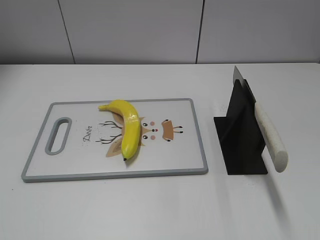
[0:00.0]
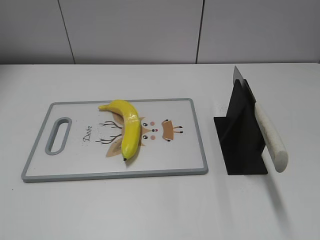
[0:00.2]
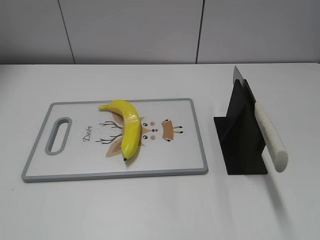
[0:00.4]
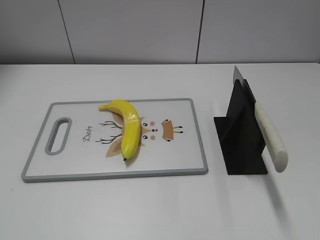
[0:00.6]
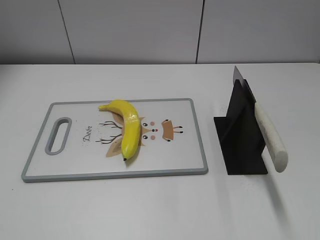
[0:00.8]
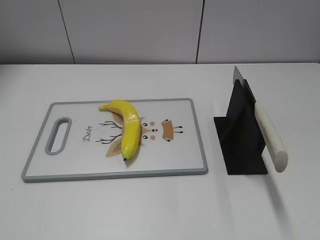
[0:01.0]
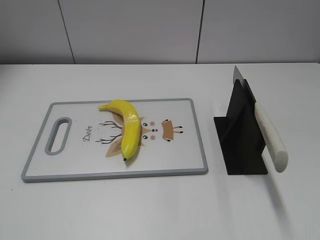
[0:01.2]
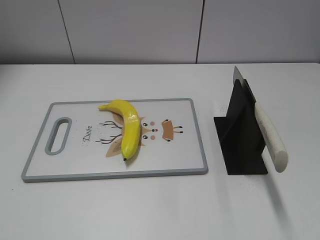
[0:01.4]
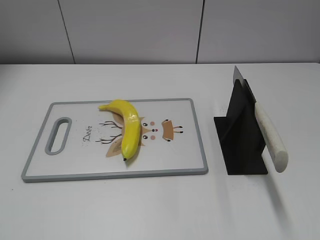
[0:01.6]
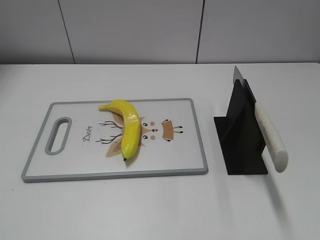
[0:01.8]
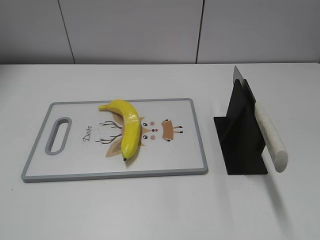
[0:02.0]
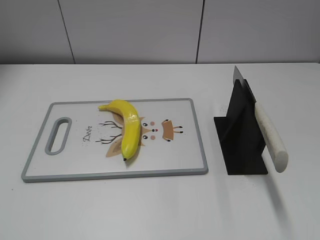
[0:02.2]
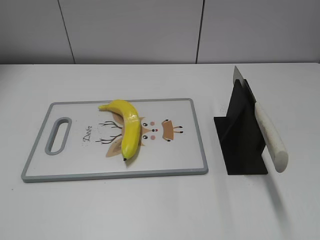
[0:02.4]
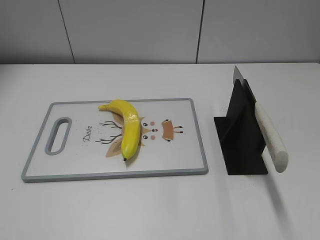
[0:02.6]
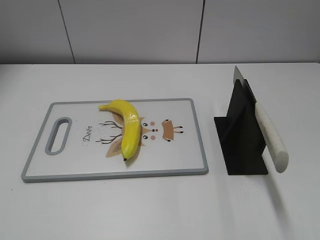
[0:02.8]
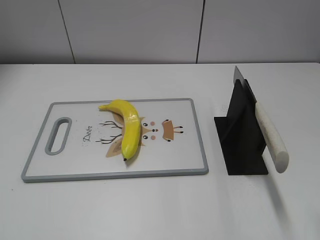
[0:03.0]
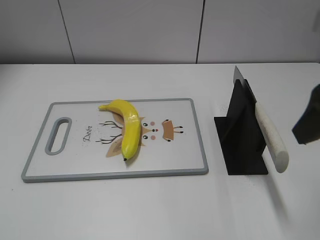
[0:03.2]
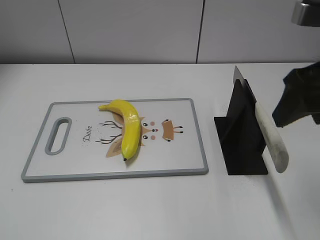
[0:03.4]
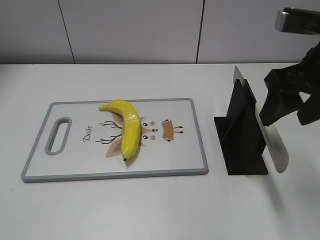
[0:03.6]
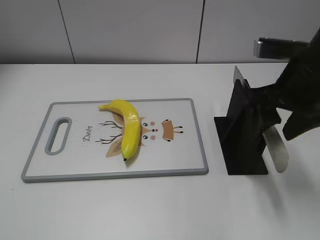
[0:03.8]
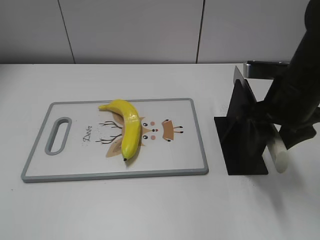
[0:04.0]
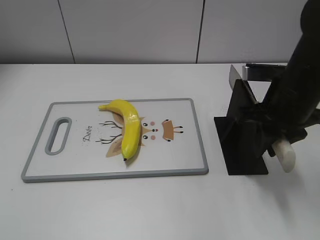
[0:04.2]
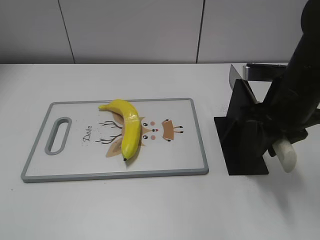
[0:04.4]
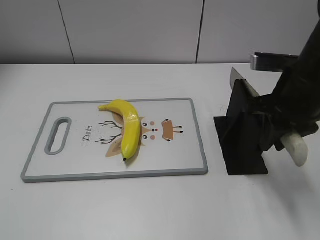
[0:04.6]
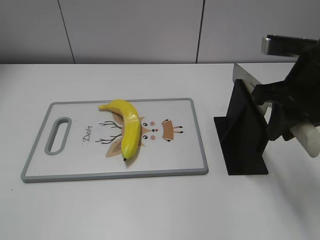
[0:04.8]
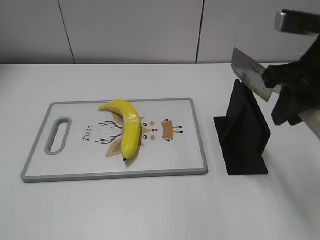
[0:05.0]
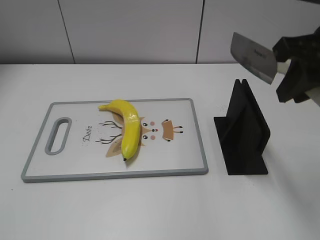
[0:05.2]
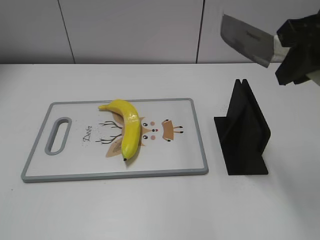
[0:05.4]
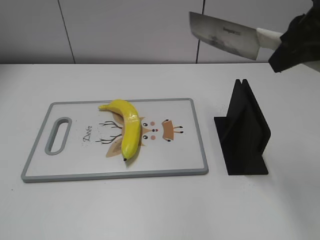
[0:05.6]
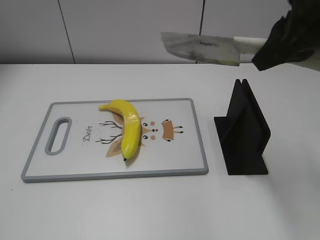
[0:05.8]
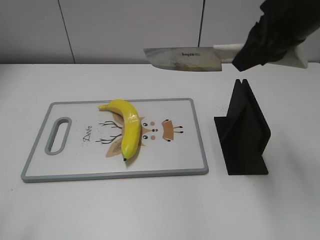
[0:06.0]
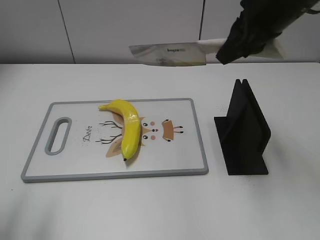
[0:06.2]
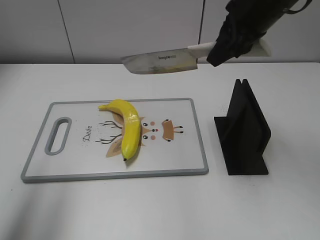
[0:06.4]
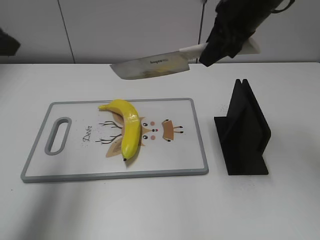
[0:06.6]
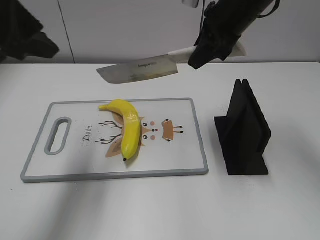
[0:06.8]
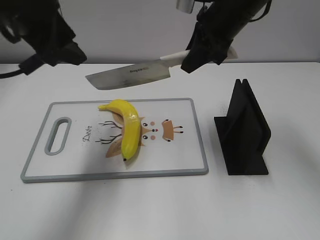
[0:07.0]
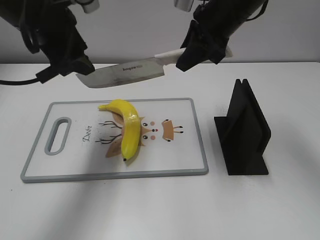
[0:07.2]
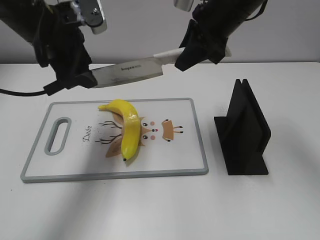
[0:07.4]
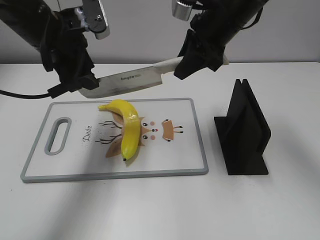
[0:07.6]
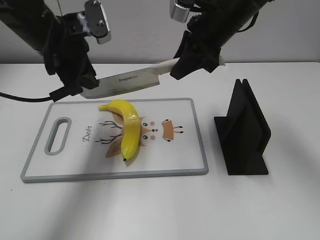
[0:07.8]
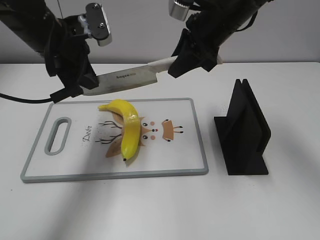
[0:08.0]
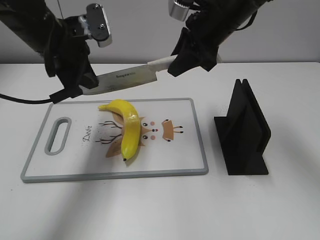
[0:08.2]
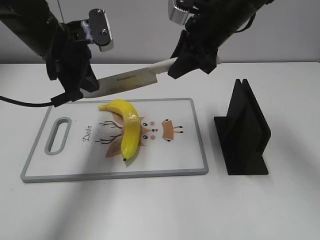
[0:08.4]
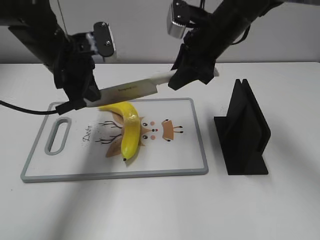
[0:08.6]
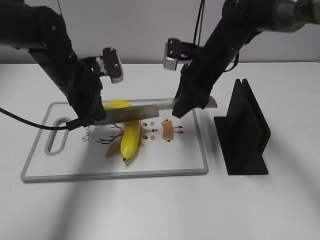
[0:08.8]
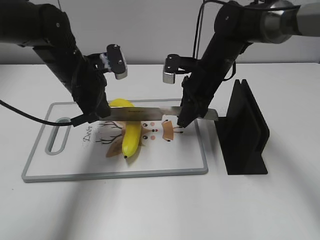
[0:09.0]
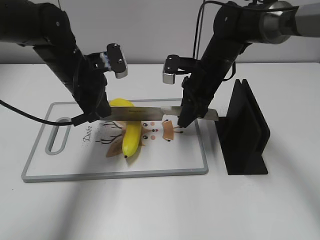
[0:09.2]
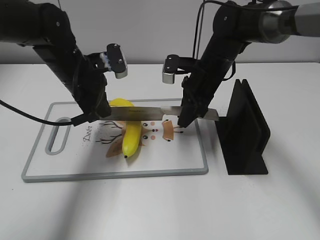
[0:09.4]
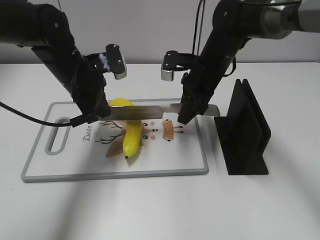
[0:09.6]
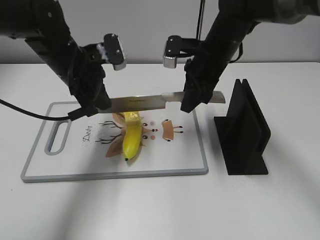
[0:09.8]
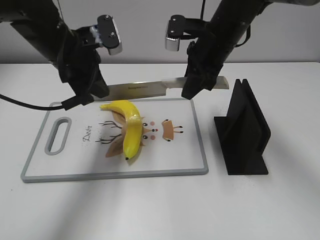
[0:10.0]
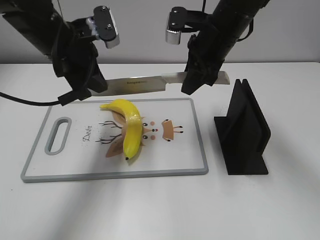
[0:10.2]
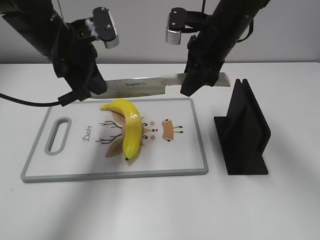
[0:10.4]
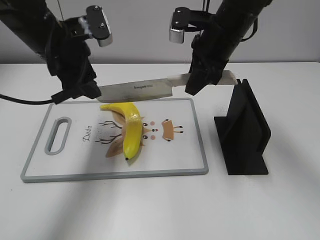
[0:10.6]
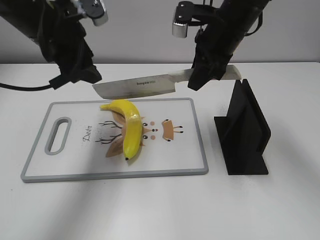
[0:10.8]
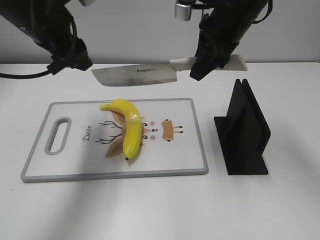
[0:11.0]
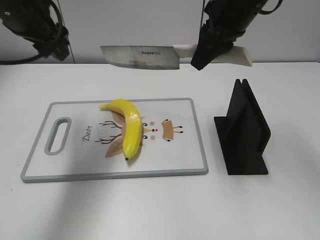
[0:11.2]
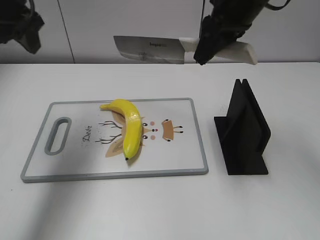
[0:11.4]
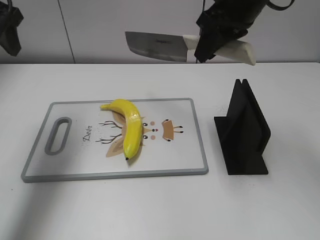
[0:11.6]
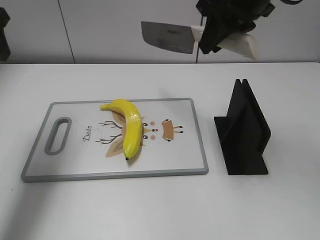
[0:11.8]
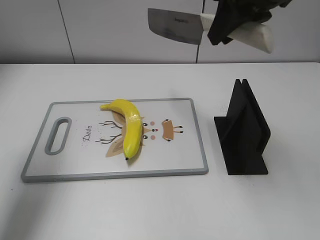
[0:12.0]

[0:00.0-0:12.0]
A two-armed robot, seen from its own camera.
Task of the whole recording: cut plastic banana.
Step, 0:00.0 to 0:05.0: Grab the knife handle with your right hand.
Step, 0:05.2 to 0:09.8: Lift the knife with your right hand.
Step, 0:10.2 to 0:11.0: Cut the banana with your right hand.
0:03.0 to 0:04.4: The right gripper heads forward, downward and to the left, covering roughly 15 cm, and closes up.
0:04.4 to 0:06.0: The left gripper shifts approximately 10 cm forward; the right gripper goes roughly 10 cm upward.
0:06.0 to 0:07.6: The left gripper goes some 30 cm forward and to the right. Meanwhile the right gripper travels forward, to the left and downward by approximately 10 cm.
0:07.6 to 0:09.0: Both grippers move downward, approximately 10 cm. The left gripper closes its fingers.
0:09.0 to 0:10.4: The grippers both shift upward by some 10 cm.
0:10.4 to 0:12.0: The left gripper moves to the left, upward and backward, some 15 cm, and opens its fingers. Meanwhile the right gripper moves upward and backward, roughly 15 cm.

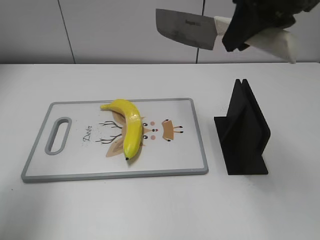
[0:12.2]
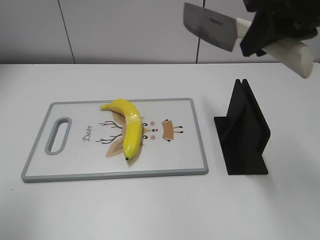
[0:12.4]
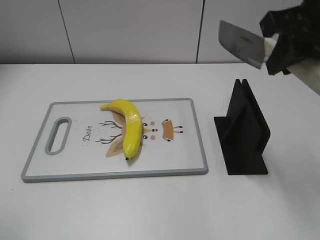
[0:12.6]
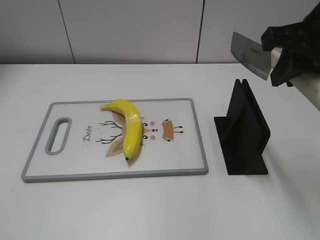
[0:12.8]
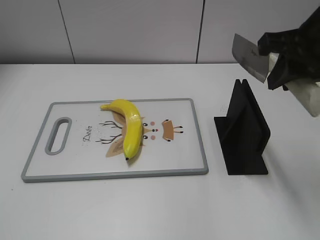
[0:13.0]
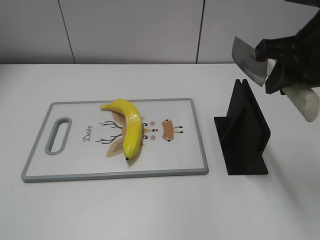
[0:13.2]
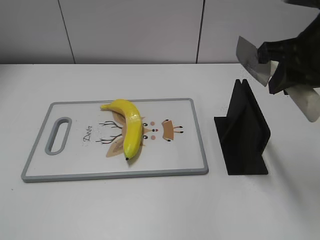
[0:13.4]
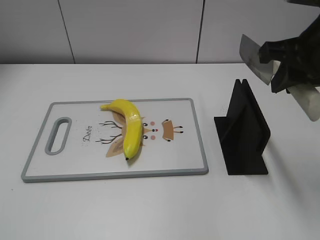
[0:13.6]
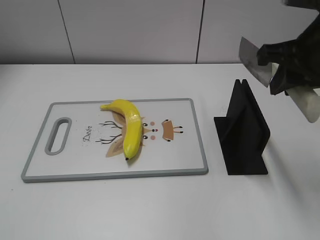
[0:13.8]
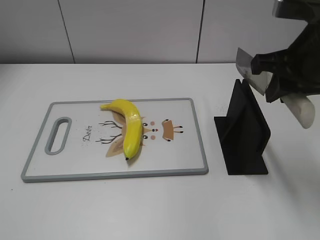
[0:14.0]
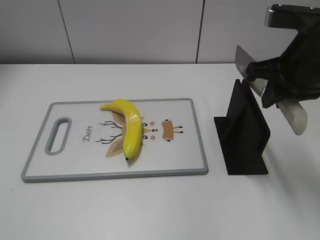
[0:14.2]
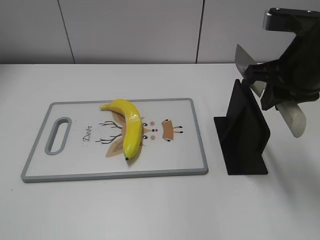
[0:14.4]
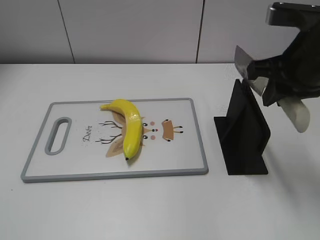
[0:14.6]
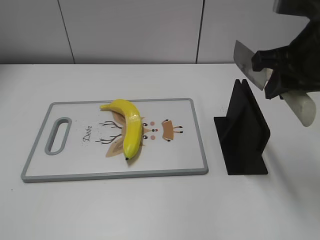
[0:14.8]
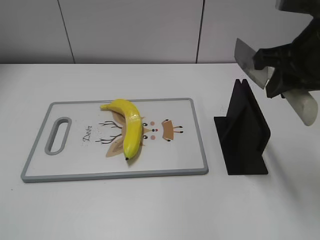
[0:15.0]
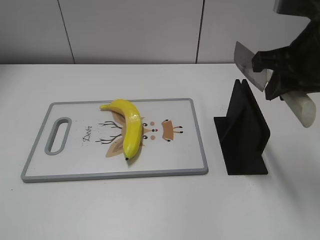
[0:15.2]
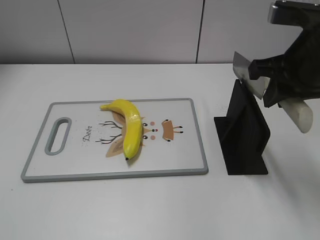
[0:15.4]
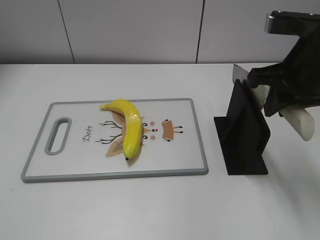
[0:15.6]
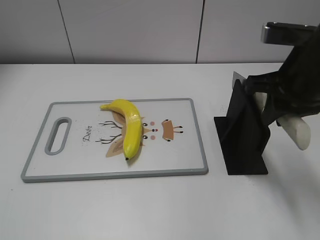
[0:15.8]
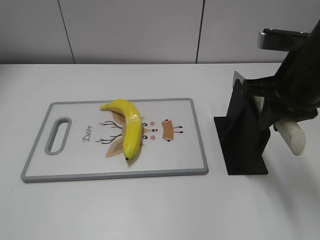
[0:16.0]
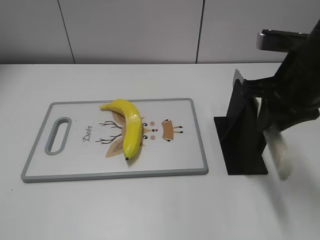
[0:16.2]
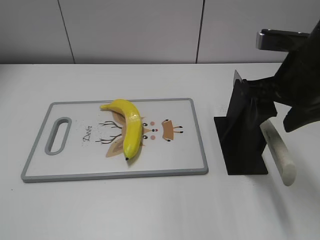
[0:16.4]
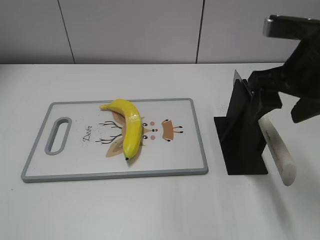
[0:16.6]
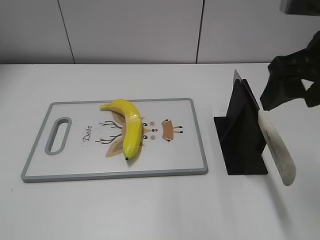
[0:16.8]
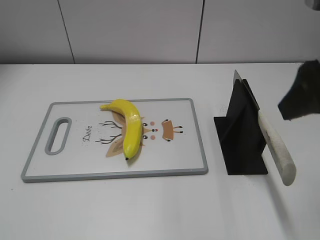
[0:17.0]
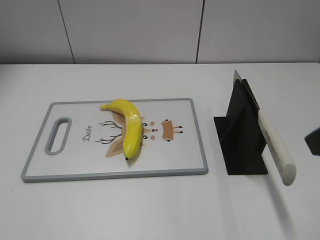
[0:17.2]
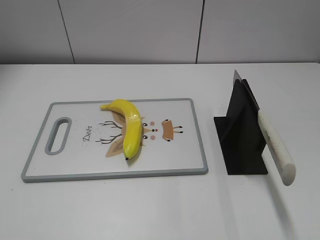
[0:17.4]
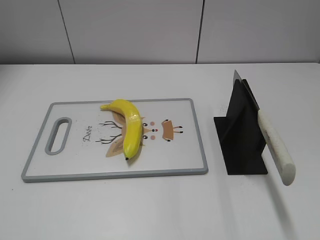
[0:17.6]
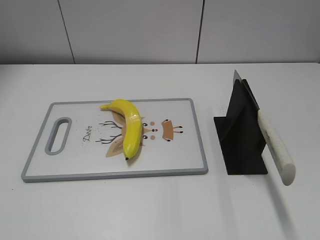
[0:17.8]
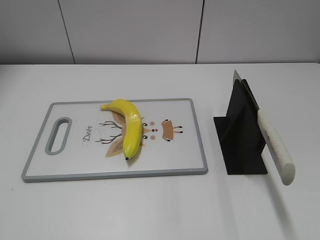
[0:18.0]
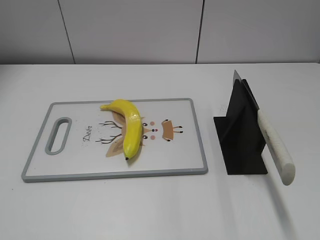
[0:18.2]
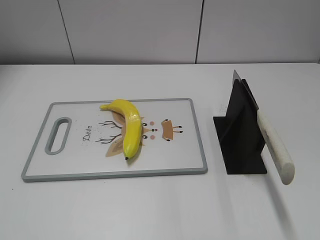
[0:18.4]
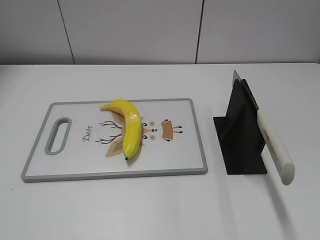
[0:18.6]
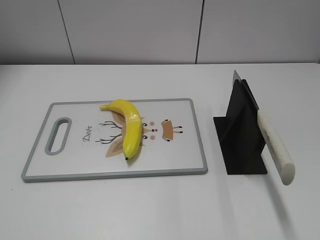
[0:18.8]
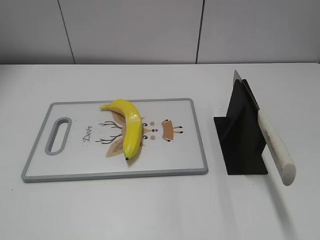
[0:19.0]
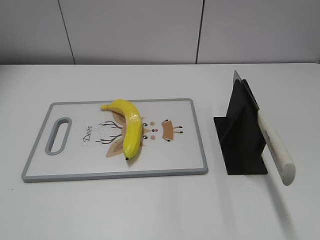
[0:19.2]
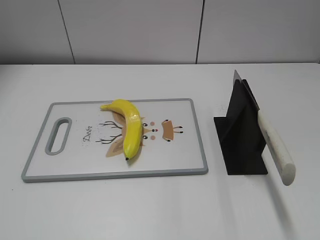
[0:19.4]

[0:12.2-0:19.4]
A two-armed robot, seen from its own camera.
Task of the whole recording: cut plastic banana.
Step, 0:13.0 to 0:19.4: Place the knife on the storage rack with your right hand.
0:12.2 to 0:13.6: The right gripper goes approximately 5 cm downward, while the left gripper is displaced backward by some 25 cm.
0:13.6 to 0:15.0: The grippers move only a little.
0:15.0 to 0:16.6: The right gripper opens.
0:16.6 to 0:18.0: The right gripper shifts approximately 25 cm backward and to the right.

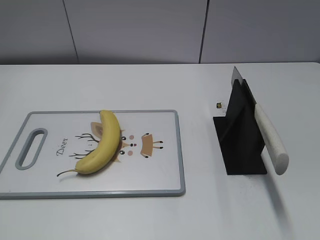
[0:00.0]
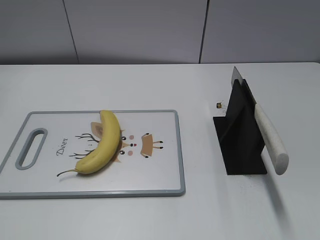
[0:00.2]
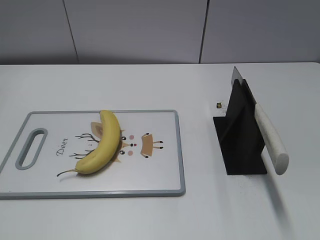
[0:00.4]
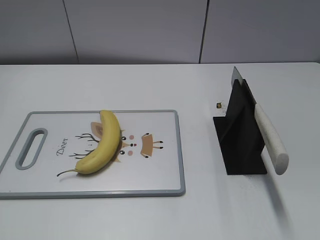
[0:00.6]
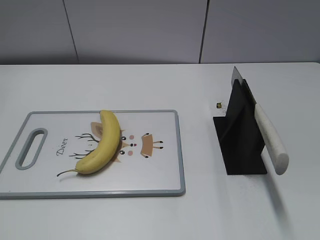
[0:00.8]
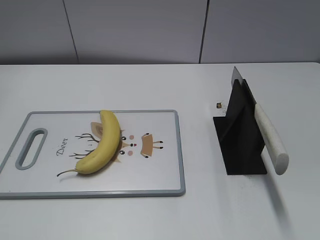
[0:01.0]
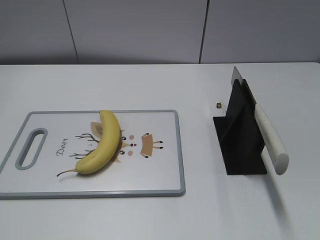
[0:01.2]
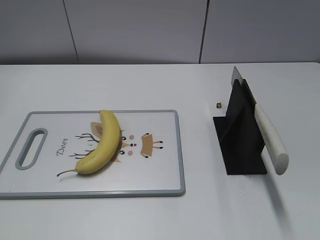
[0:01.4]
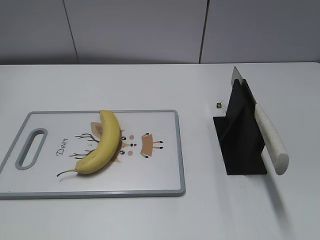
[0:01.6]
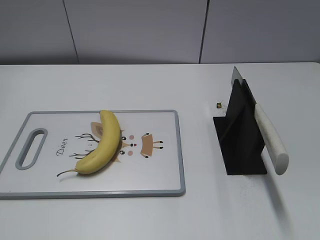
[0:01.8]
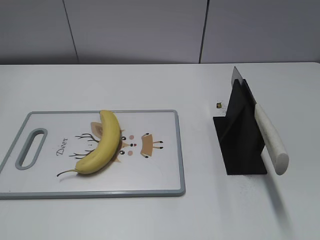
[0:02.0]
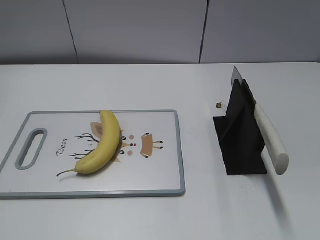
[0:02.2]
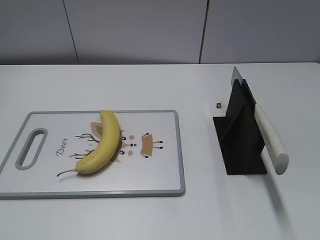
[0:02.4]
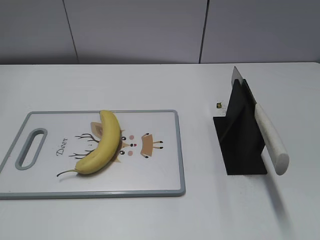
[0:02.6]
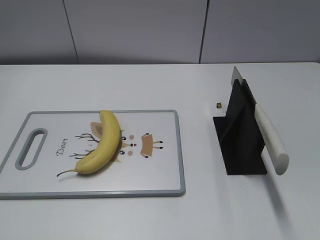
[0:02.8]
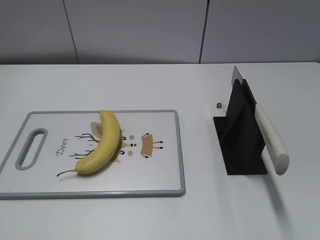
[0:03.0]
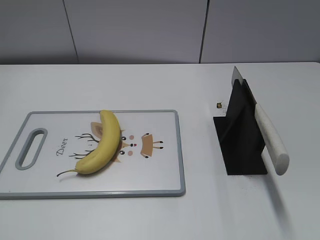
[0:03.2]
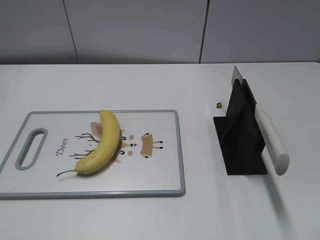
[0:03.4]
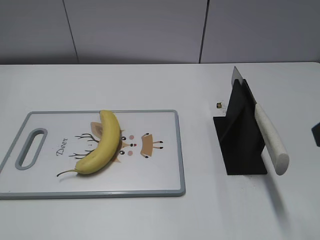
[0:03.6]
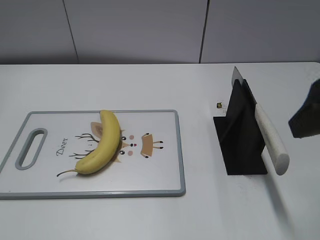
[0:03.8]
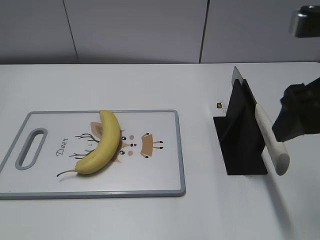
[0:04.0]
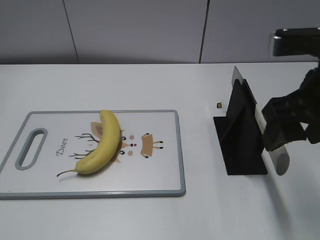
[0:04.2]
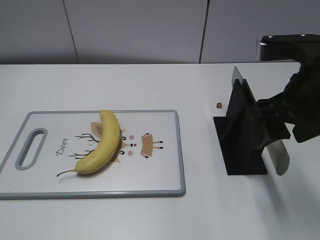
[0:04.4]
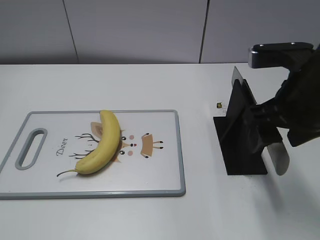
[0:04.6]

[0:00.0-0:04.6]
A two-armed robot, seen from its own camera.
Task of the whole recording: cut banana.
0:03.0 to 0:04.6: The right gripper heads forward, to the left and downward, covering roughly 20 cm.
